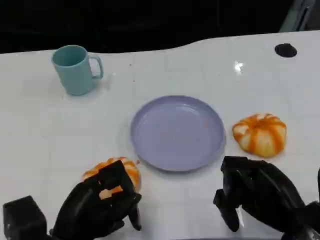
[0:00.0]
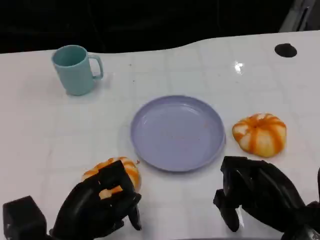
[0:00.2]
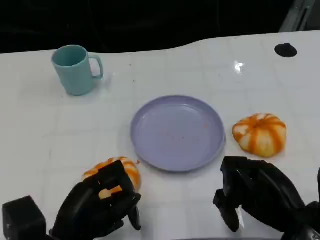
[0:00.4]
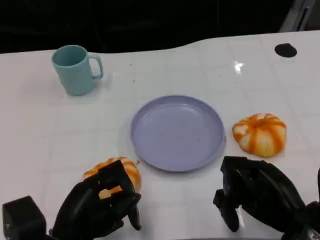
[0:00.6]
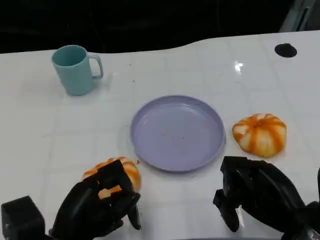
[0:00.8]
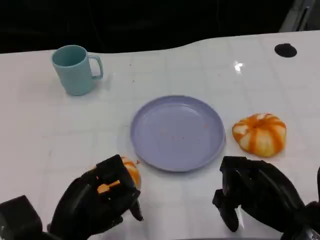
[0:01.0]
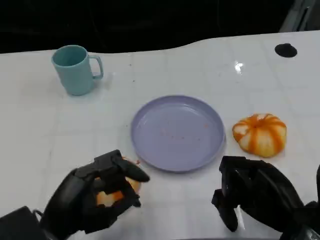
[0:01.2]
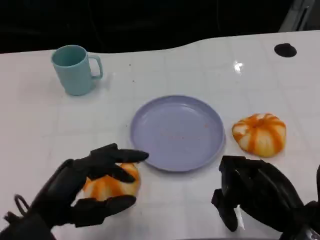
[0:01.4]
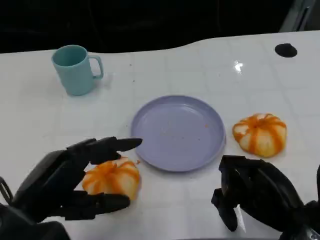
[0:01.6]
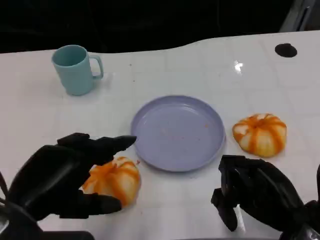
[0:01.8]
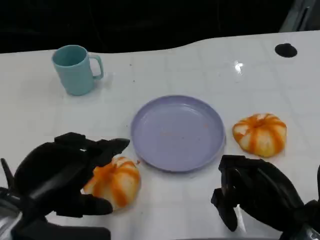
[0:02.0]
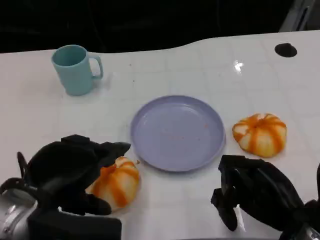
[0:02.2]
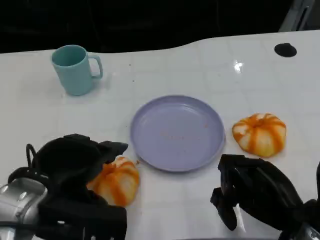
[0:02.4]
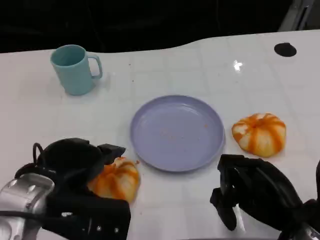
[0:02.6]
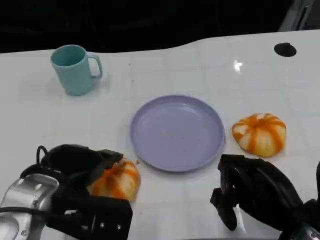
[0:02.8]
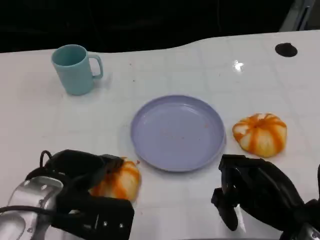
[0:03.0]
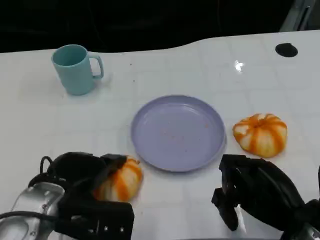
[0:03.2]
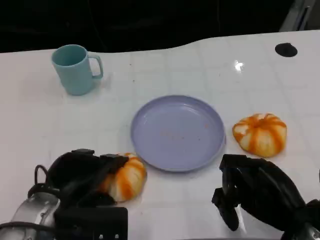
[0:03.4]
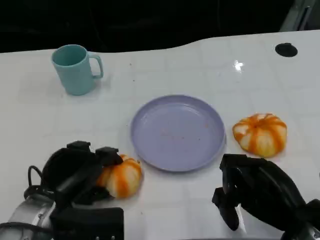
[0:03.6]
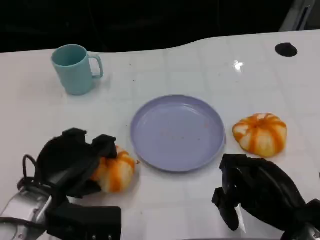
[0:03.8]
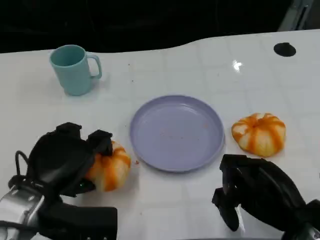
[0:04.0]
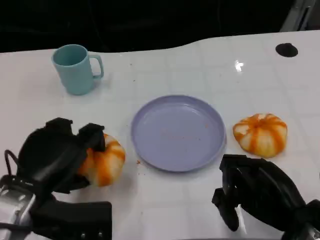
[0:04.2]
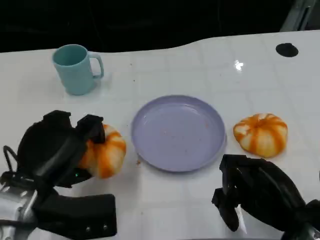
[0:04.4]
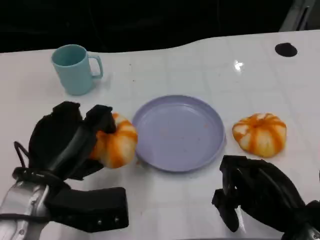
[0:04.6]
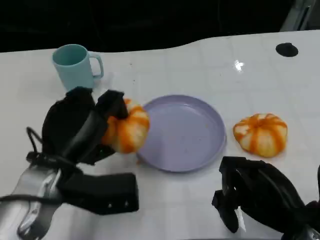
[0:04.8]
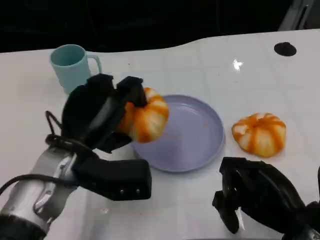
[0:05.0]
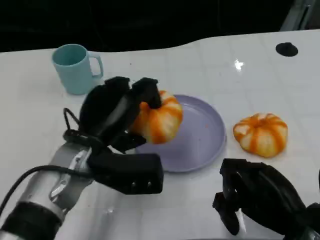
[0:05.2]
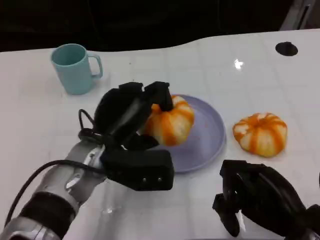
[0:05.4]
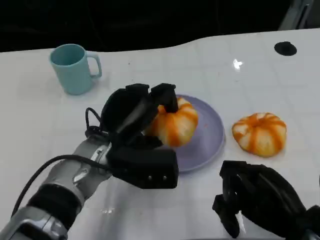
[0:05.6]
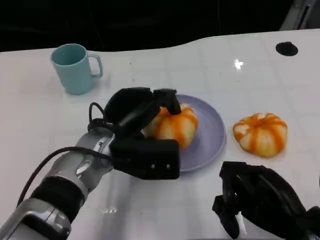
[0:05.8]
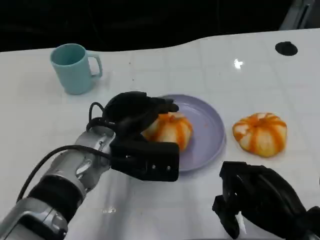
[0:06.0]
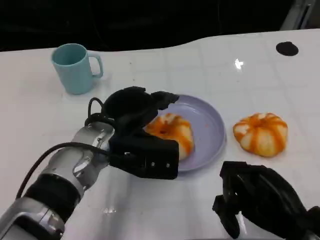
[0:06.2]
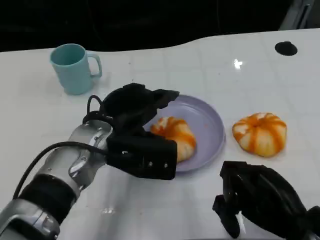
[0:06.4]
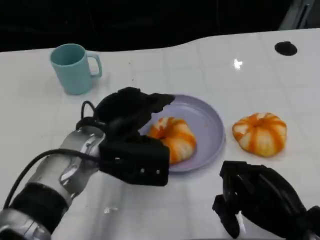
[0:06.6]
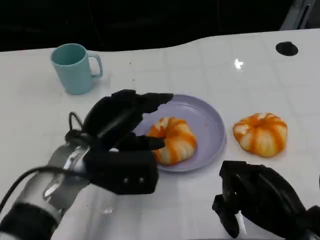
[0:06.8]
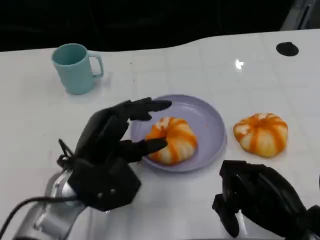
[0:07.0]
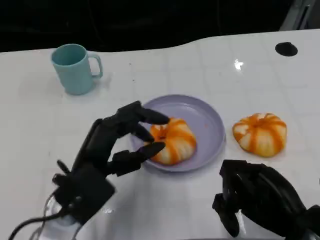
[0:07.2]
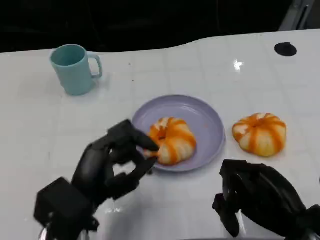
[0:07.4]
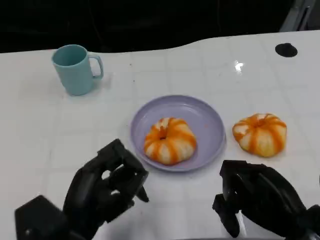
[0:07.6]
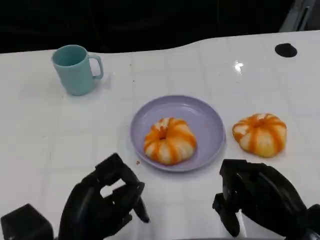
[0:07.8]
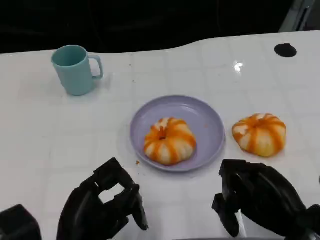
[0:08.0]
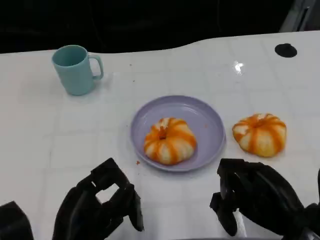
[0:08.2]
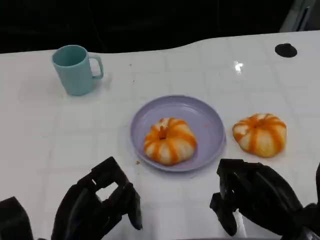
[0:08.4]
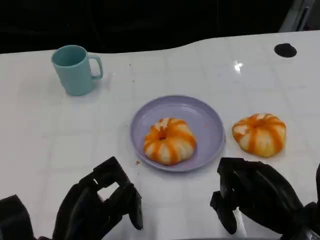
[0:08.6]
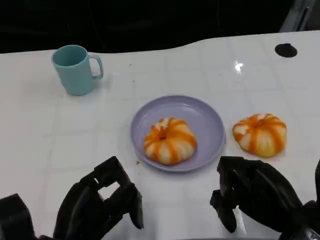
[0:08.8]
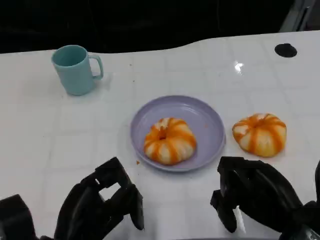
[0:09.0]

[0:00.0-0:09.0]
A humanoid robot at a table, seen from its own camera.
Task of the whole recording: Grasp the bread from the table and place it into the plate.
0.0 to 1.6 s: The left hand is displaced upward by roughly 10 cm.
1.6 to 3.0 s: The left hand goes roughly 5 cm forward.
4.4 to 6.0 s: The left hand moves to the right and forward, some 15 cm.
6.0 to 7.6 s: The left hand travels backward by some 15 cm.
7.6 to 9.0 s: The hands move only a little.

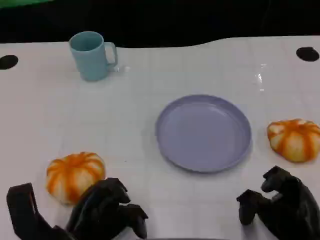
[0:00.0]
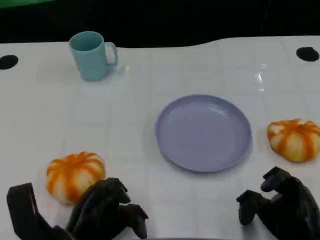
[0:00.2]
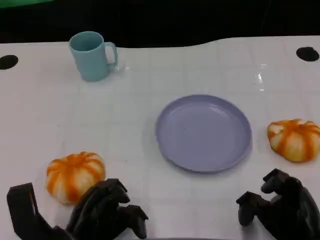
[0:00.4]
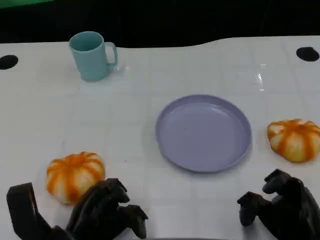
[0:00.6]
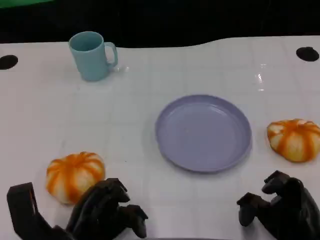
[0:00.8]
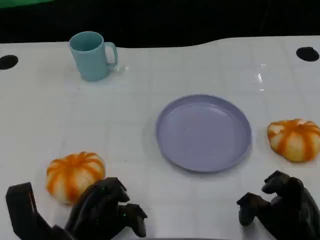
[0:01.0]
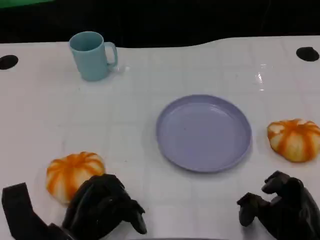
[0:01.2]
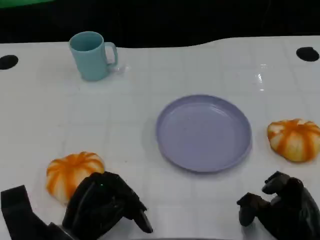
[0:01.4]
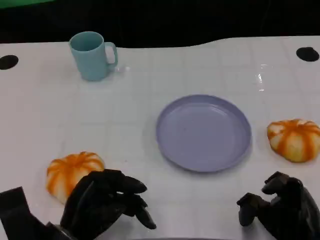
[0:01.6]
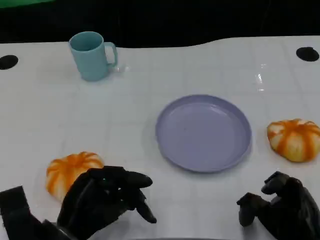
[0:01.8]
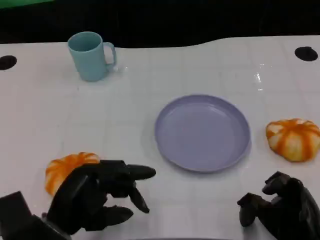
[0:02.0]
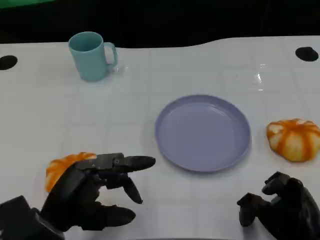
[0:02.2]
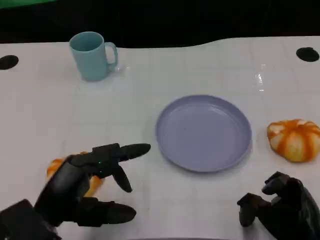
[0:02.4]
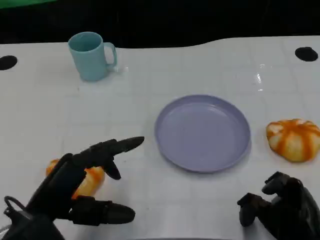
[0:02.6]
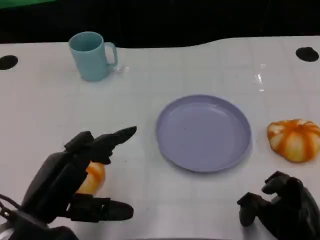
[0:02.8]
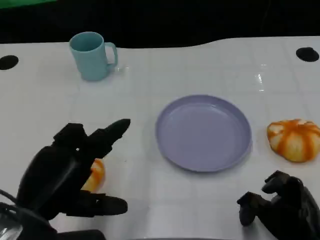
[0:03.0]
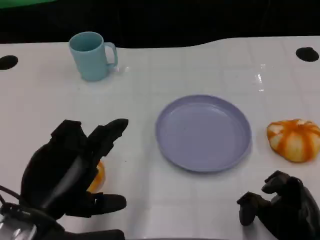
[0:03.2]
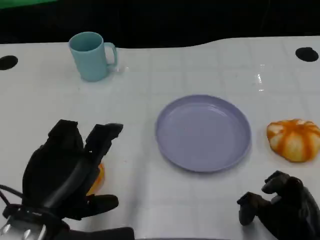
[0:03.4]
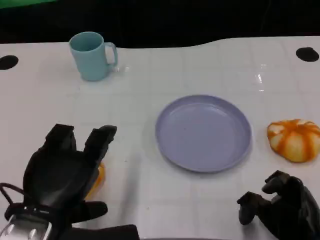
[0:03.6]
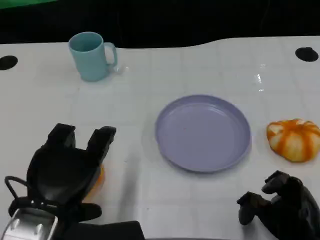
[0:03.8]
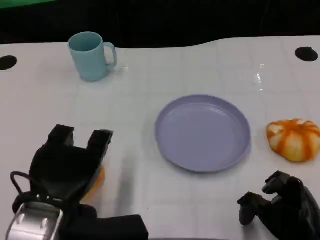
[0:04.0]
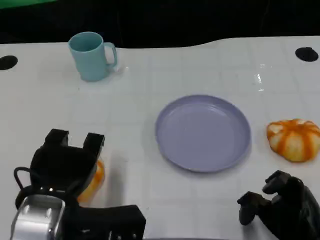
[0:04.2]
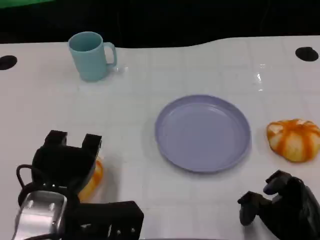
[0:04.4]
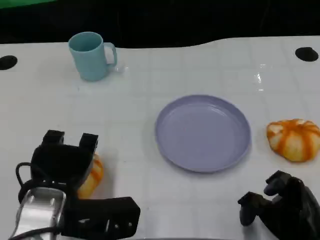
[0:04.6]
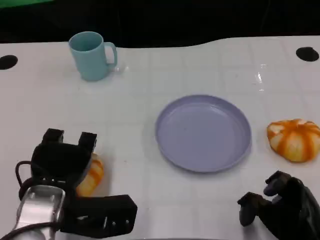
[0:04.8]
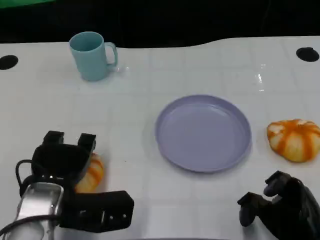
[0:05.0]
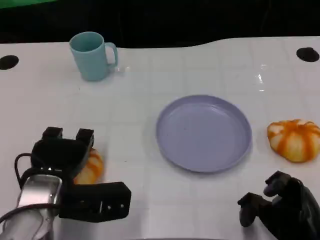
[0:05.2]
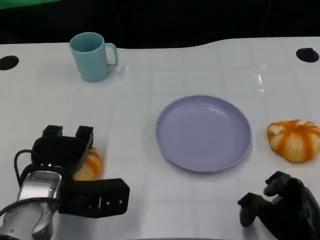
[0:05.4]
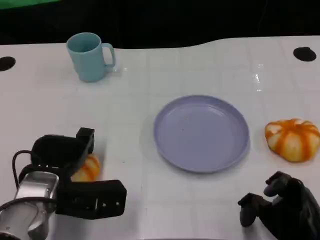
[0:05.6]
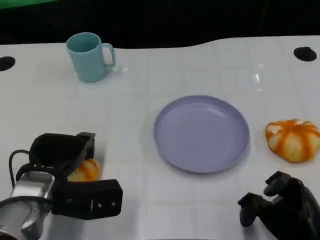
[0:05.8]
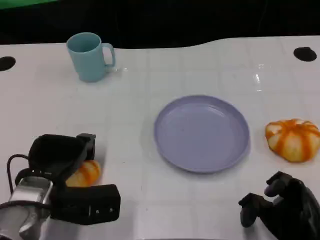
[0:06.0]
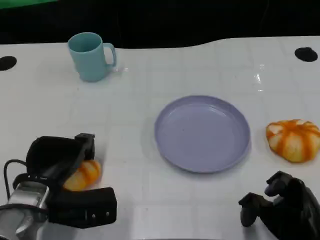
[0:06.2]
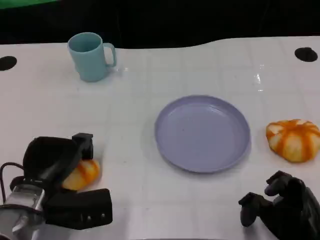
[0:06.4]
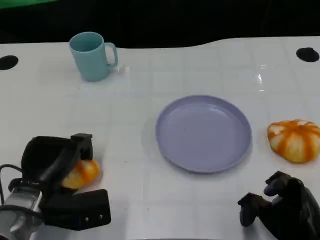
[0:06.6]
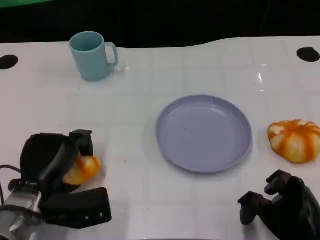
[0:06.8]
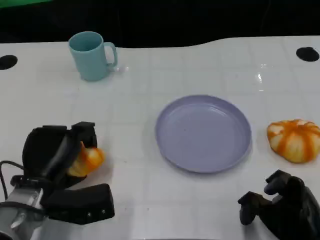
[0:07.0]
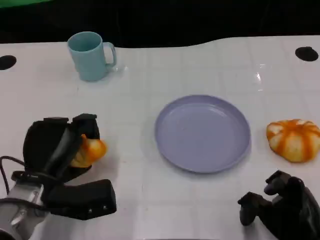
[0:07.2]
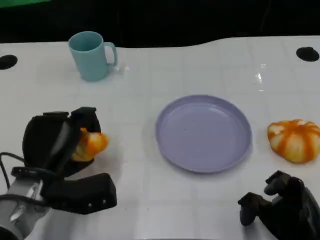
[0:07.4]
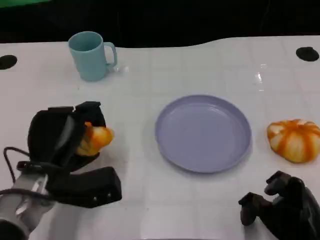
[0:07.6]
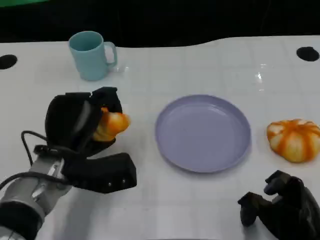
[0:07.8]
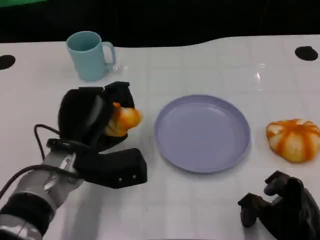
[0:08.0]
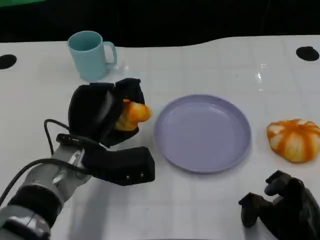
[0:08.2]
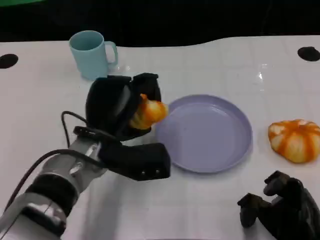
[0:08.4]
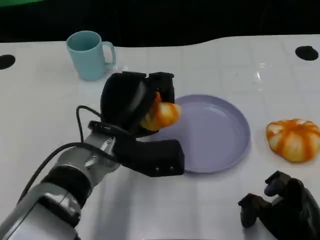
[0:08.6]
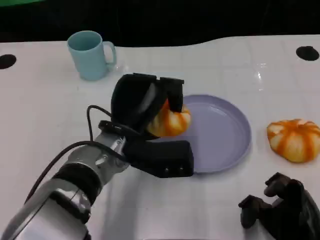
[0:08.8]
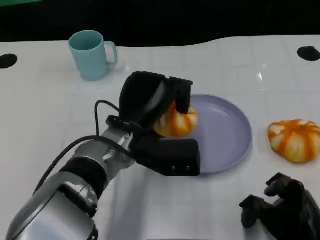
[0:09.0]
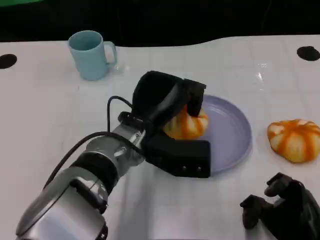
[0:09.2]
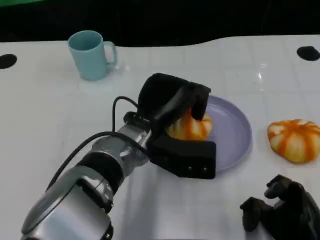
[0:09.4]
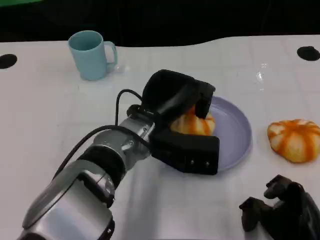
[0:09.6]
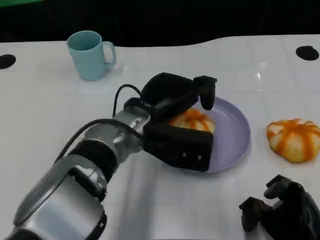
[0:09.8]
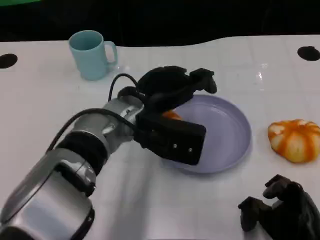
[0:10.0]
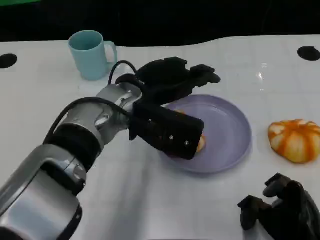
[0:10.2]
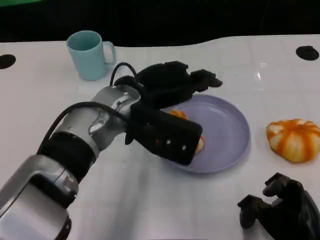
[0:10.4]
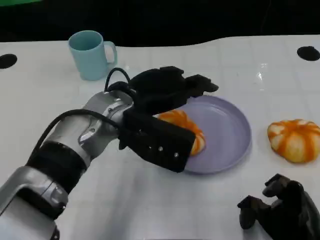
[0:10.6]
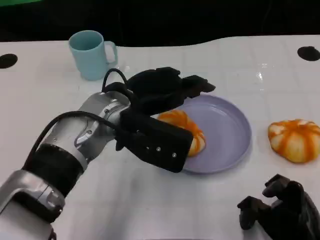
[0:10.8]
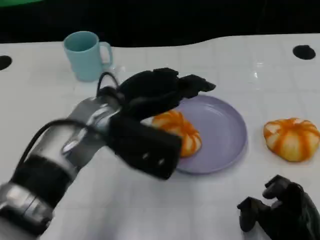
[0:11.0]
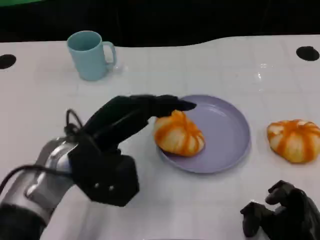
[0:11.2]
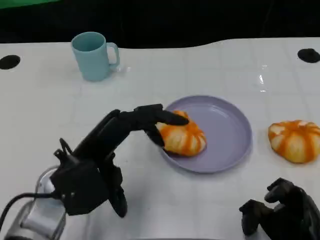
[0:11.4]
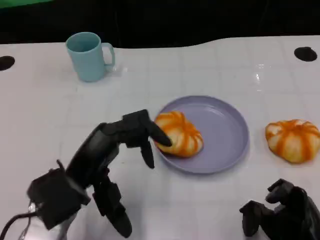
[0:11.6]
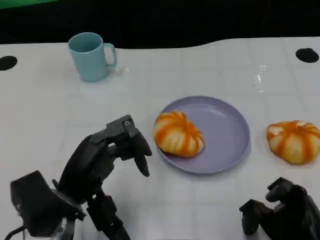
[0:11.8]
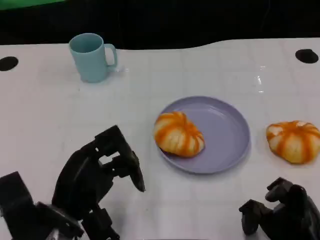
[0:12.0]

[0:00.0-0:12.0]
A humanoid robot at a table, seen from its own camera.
Task of the whole recording: Grasp the bread from the table and place it into the plate.
0.0 to 1.6 s: The hands make only small movements.
1.6 to 3.0 s: The left hand is displaced upward by some 10 cm.
4.4 to 6.0 s: The left hand is displaced downward by approximately 5 cm.
7.6 to 9.0 s: The left hand travels to the right by roughly 10 cm.
9.0 to 10.4 s: The left hand heads upward, covering some 5 cm.
10.4 to 12.0 s: The left hand goes approximately 20 cm backward, to the left and downward.

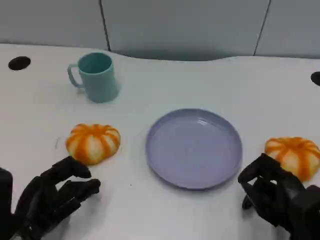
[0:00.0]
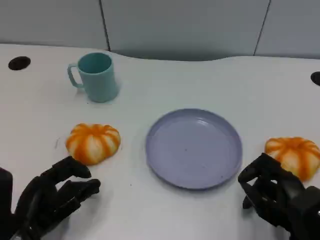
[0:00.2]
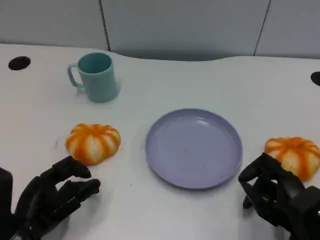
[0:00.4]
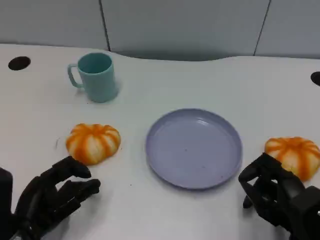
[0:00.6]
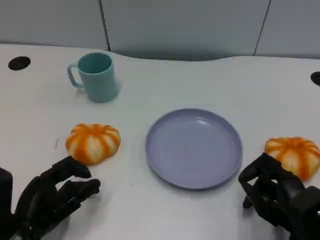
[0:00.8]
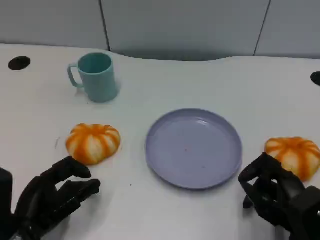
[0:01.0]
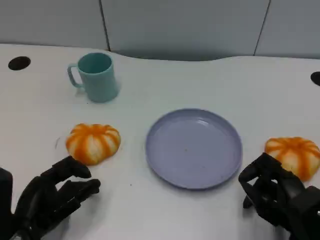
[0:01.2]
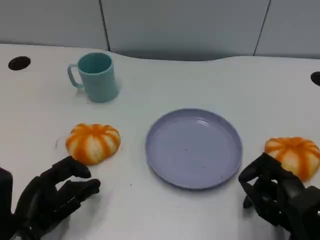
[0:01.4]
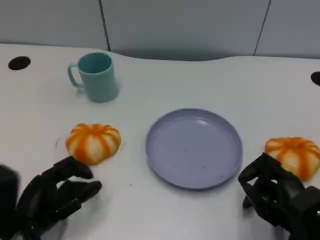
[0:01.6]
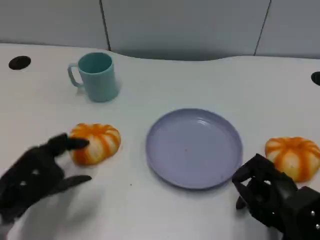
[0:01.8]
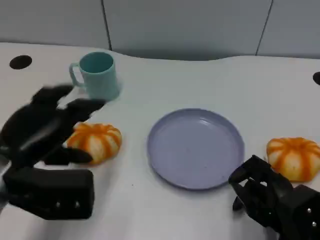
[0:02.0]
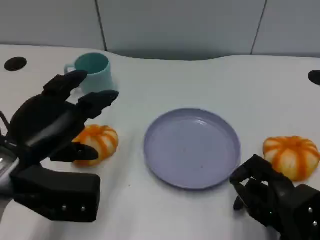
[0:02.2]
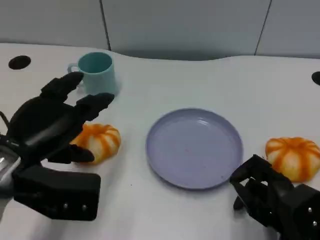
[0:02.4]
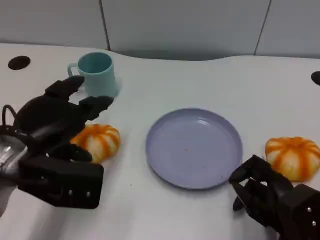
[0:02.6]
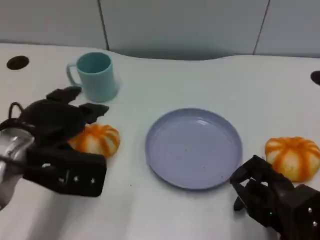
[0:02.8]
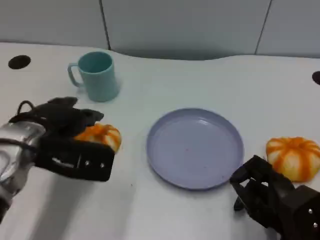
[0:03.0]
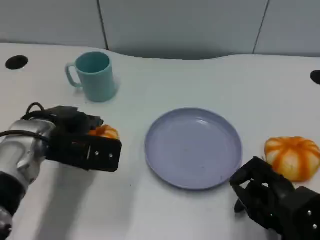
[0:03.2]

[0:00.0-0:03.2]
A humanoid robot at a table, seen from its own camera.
Task of the whole recording: Grasp the bread from the table and place it into the plate.
0.0 to 1.6 s: The hands stay close to where they were, moving slightly.
1.6 to 3.2 s: The left hand goes roughly 15 cm forward, upward and to the right.
